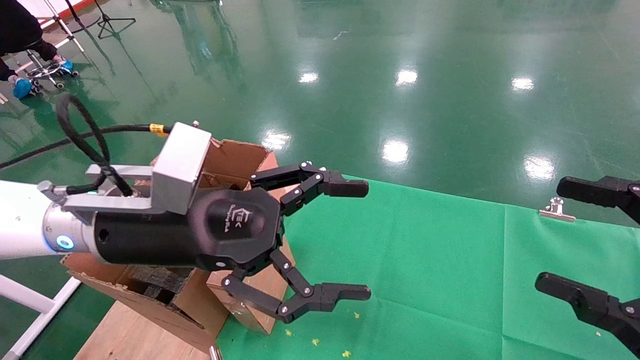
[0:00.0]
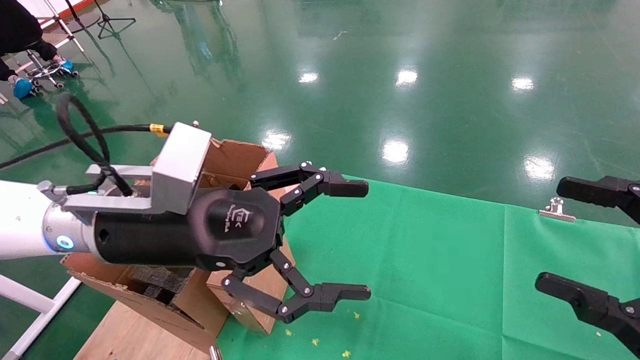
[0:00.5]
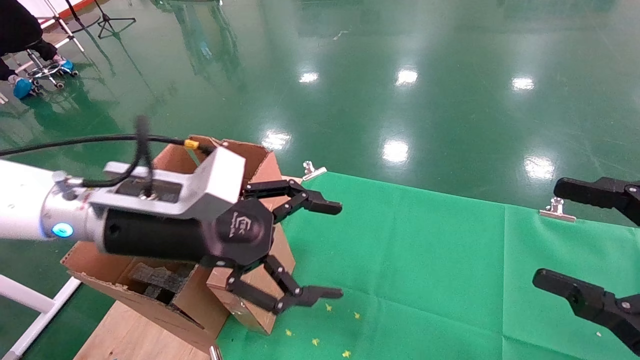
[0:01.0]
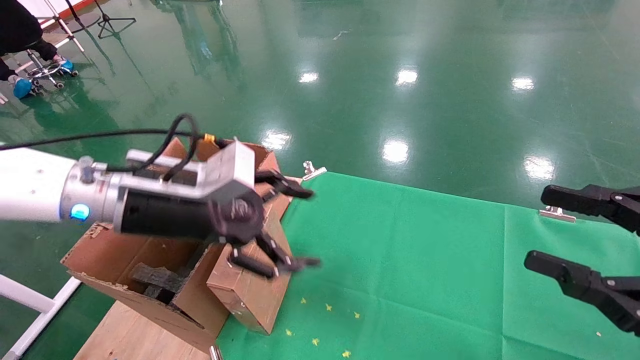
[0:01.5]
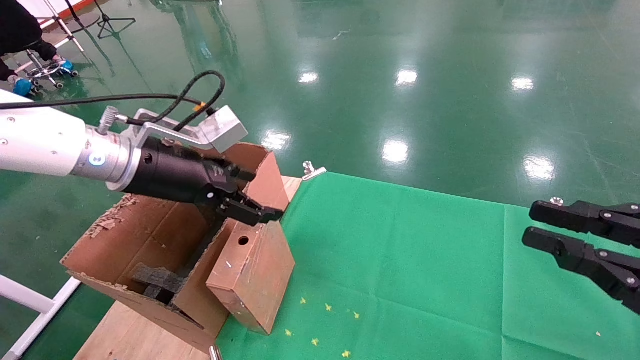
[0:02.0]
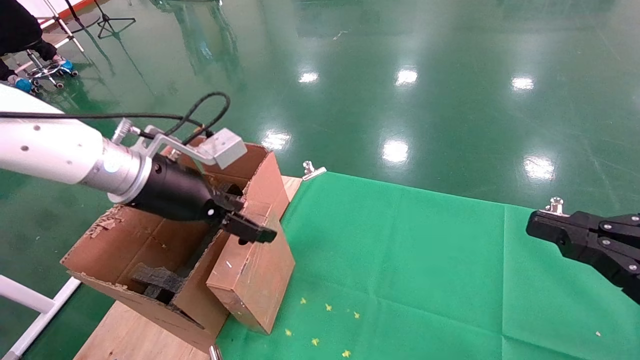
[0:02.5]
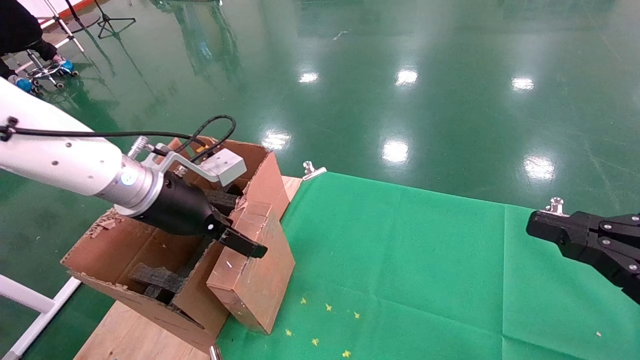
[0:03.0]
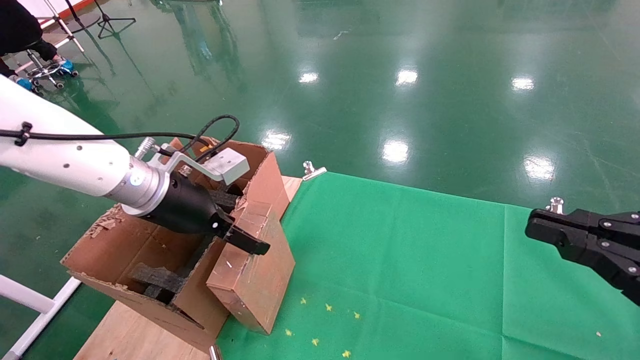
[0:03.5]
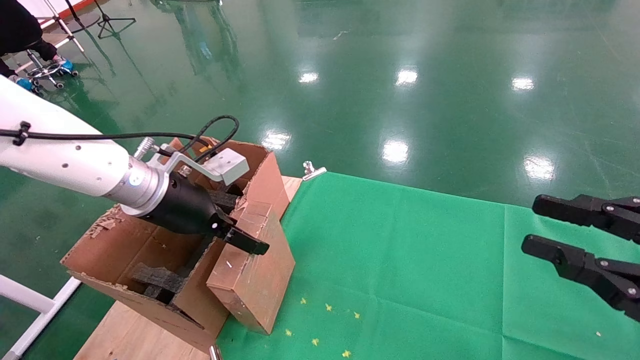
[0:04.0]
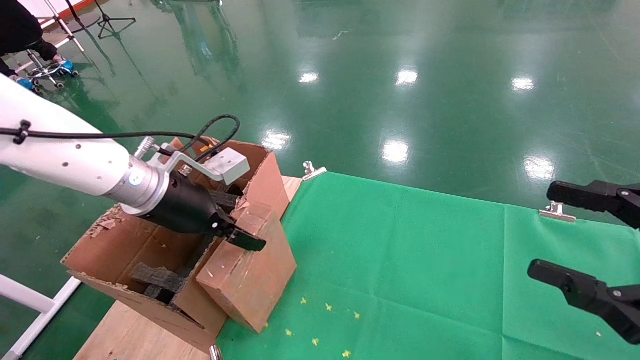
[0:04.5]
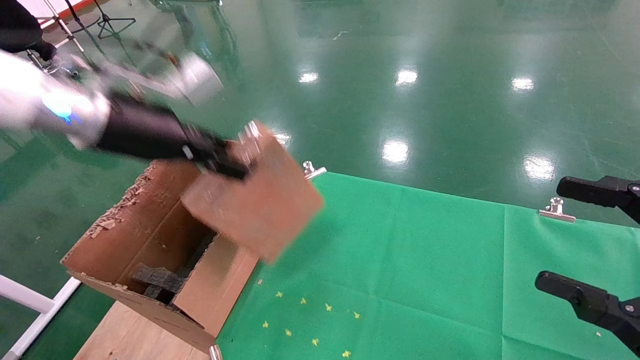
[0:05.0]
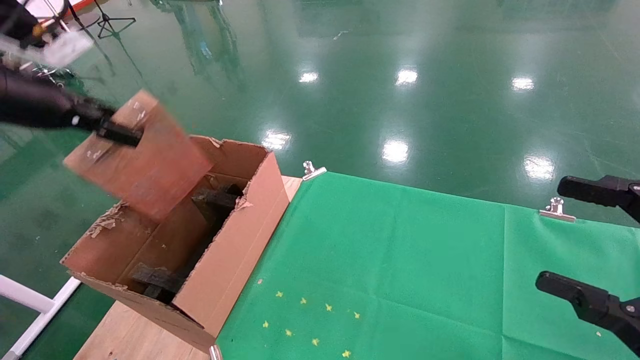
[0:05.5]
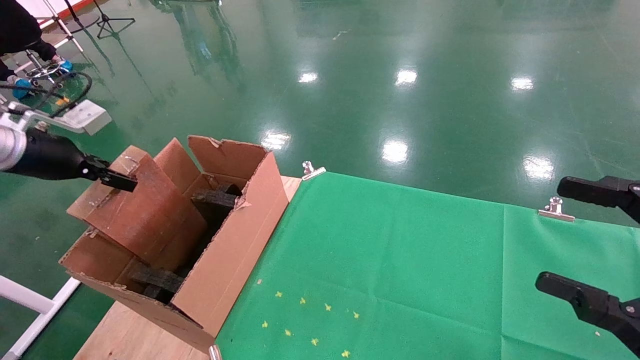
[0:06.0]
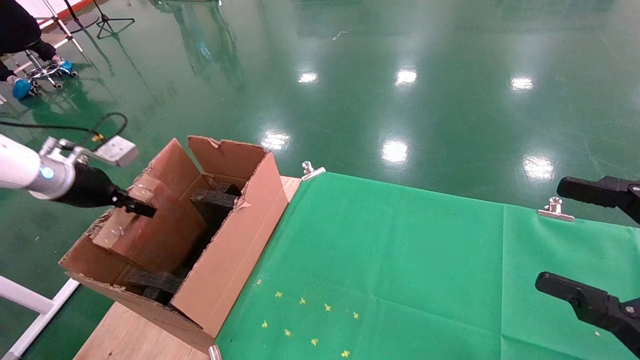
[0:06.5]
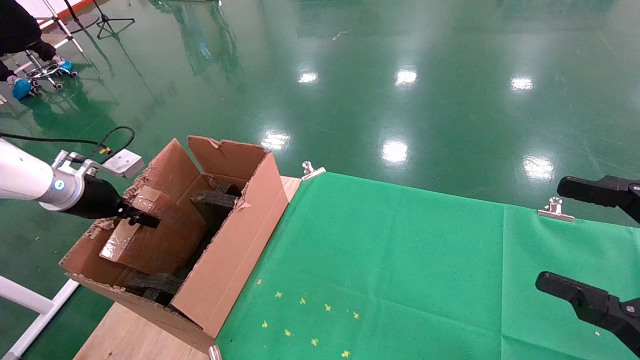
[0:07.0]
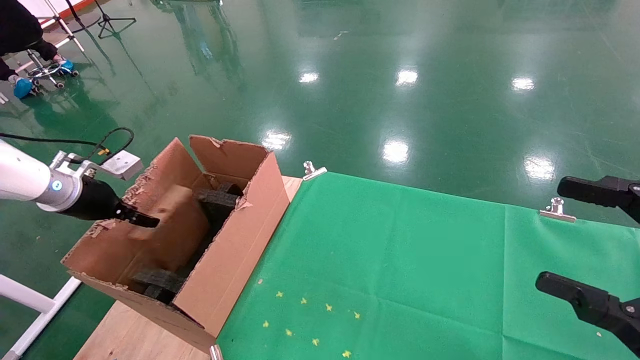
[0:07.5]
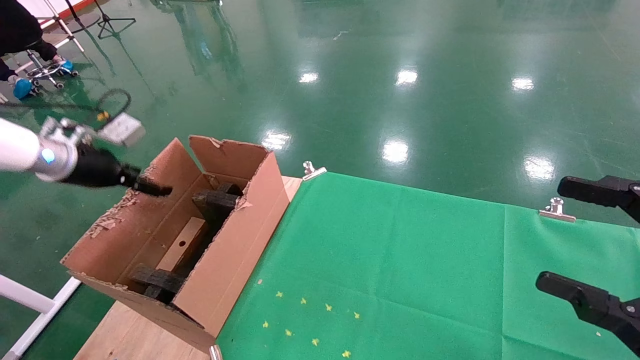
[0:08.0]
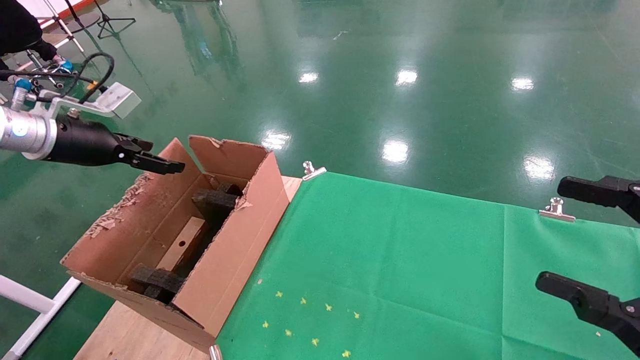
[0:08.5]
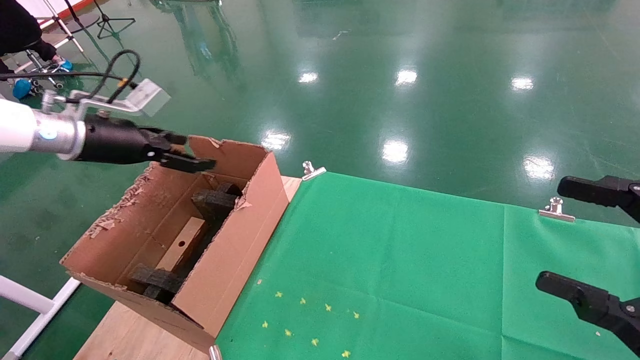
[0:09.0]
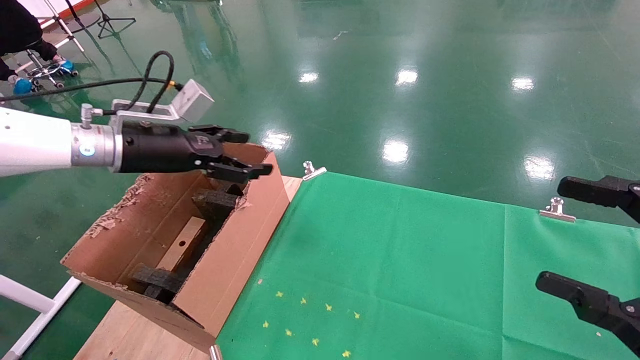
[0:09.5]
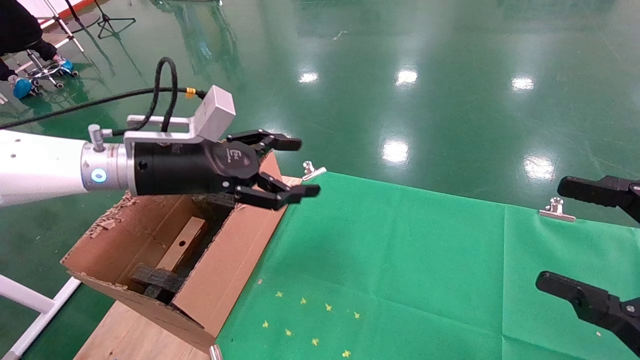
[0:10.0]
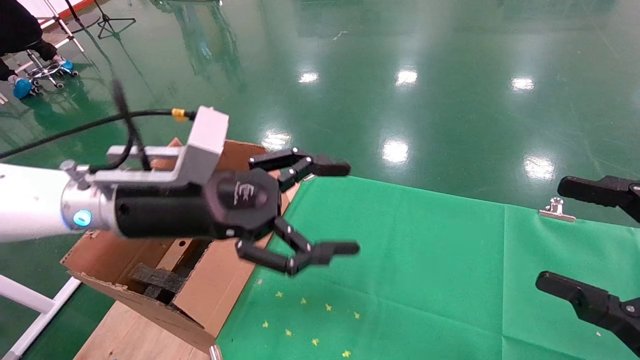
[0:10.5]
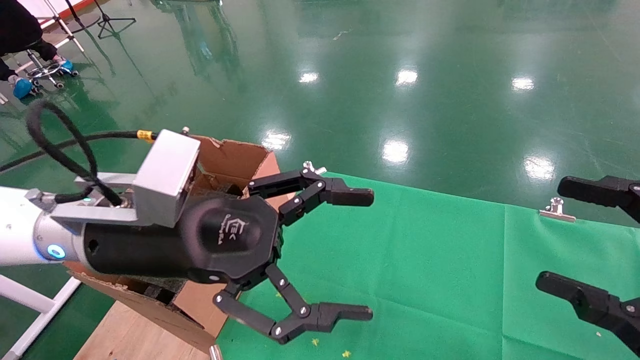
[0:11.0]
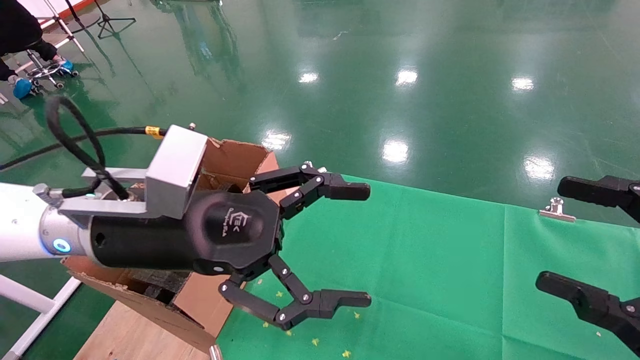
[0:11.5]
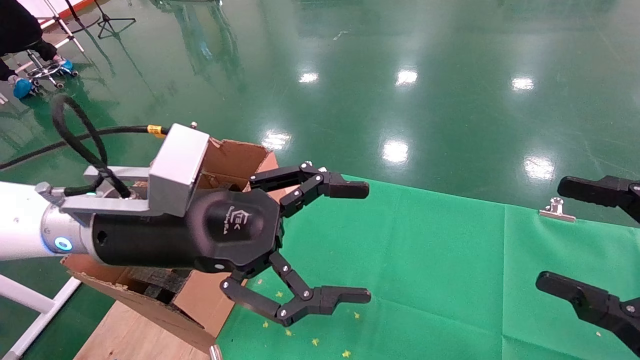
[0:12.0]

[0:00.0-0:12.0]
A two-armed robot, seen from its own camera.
Task of the whole recording: using a robotic arm to pick up a cardboard box and palace it the carton.
Step, 0:01.5 to 0:04.5: Pick up the mouse and the power cord paper box.
Step, 0:05.0 to 0:07.5: Place the mouse and the power cord paper box into the container.
0:00.0 to 0:02.0: The left gripper is displaced forward and to the left by approximately 10 cm, while the right gripper closes up.
0:04.0 to 0:06.0: The left gripper shifts approximately 25 cm to the left, and closes its fingers, while the right gripper opens.
0:06.0 to 0:08.0: The left gripper opens its fingers.
0:08.0 to 0:10.0: The left gripper is displaced to the right by approximately 20 cm.
0:10.0 to 0:12.0: The left gripper travels backward and to the right by about 10 cm.

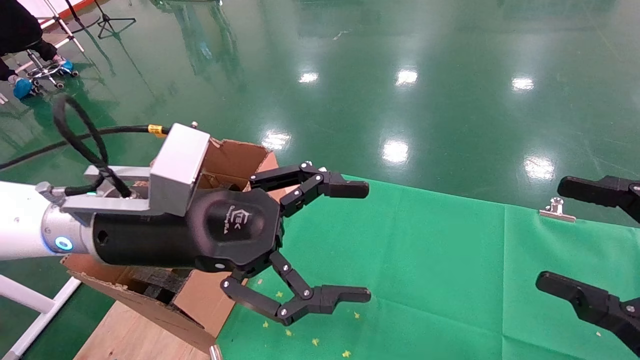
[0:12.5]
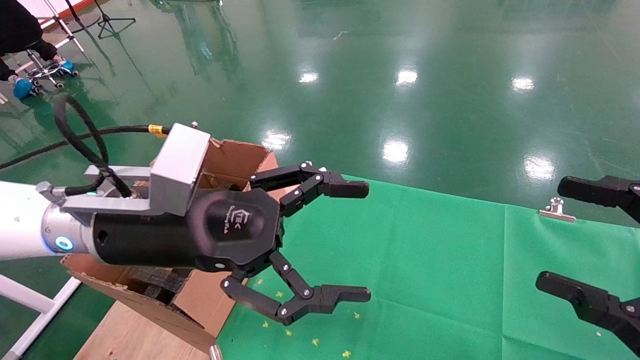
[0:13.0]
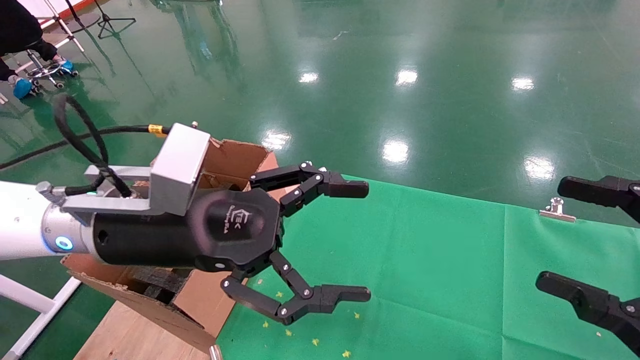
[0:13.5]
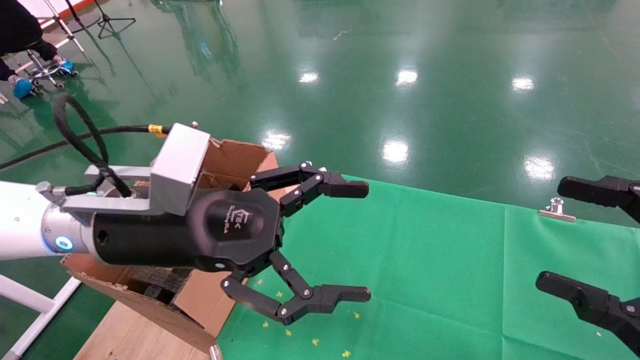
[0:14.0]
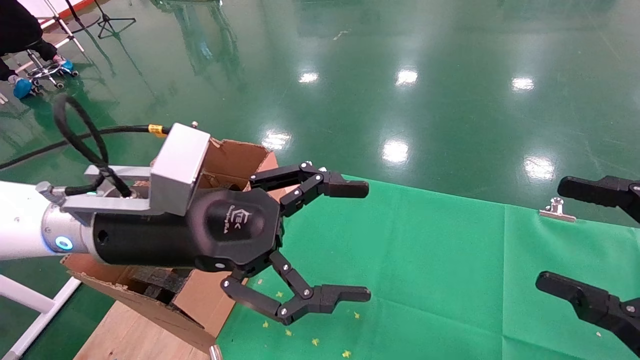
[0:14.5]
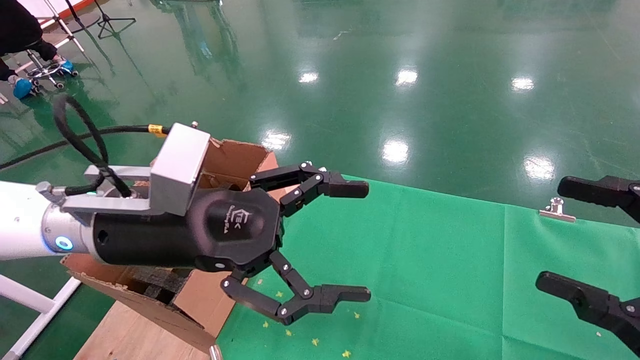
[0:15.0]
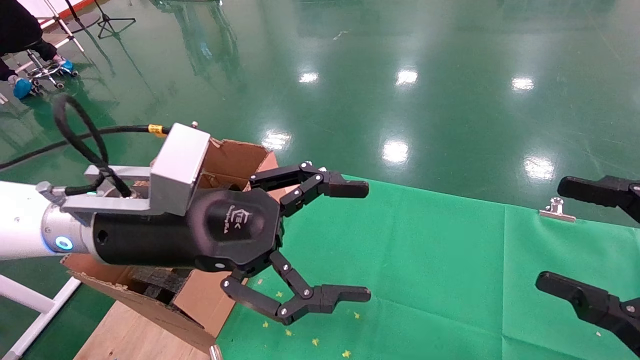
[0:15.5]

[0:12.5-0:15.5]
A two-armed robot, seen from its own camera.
Task of the whole recording: using a robotic arm to pick up a cardboard box and palace it the carton.
0:12.5 to 0:15.5: The two grippers keep their place.

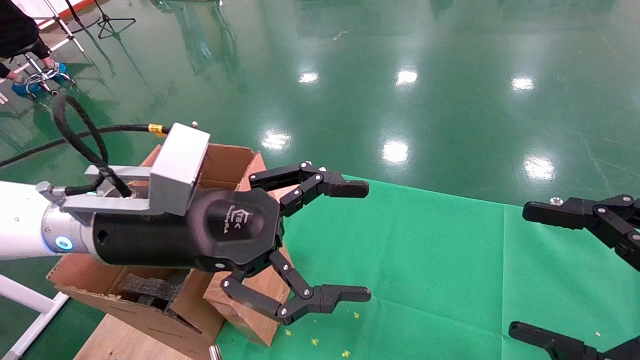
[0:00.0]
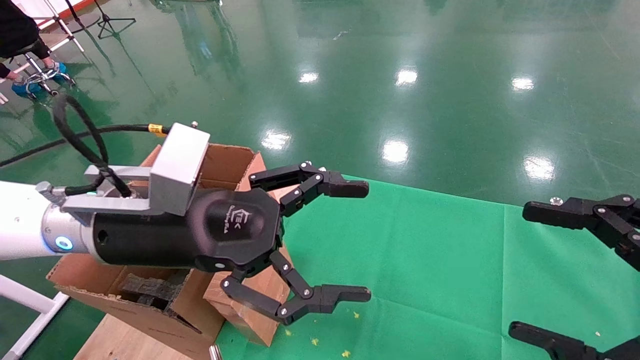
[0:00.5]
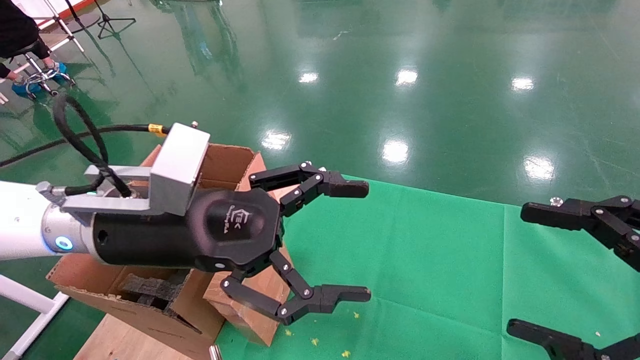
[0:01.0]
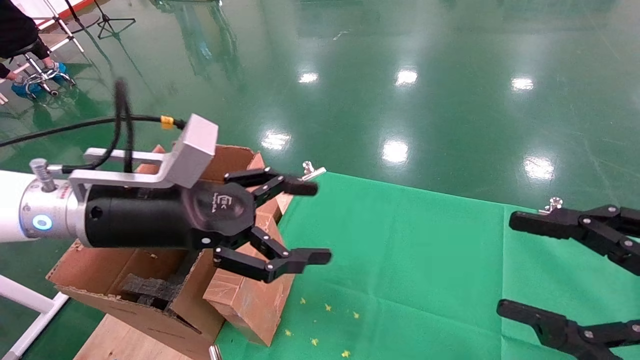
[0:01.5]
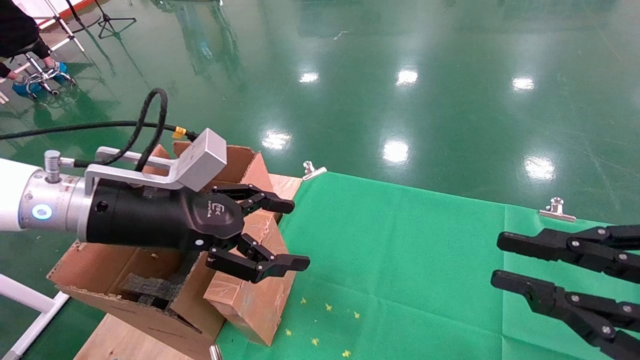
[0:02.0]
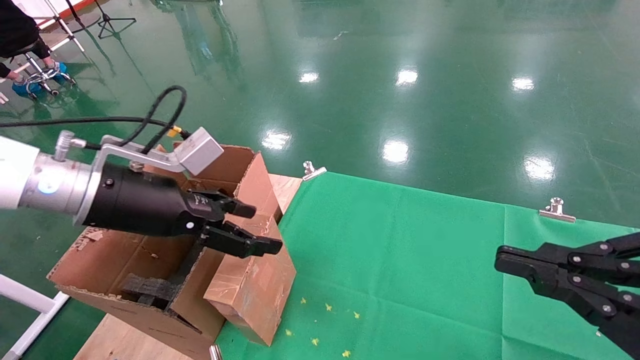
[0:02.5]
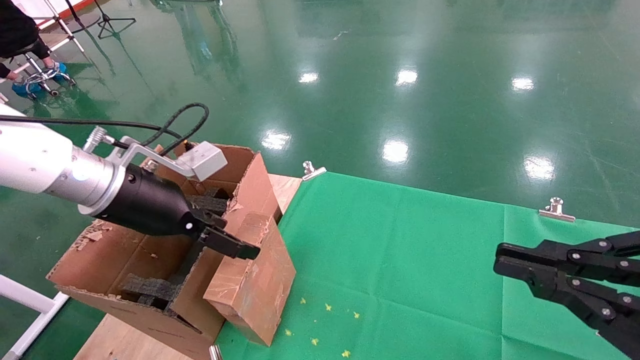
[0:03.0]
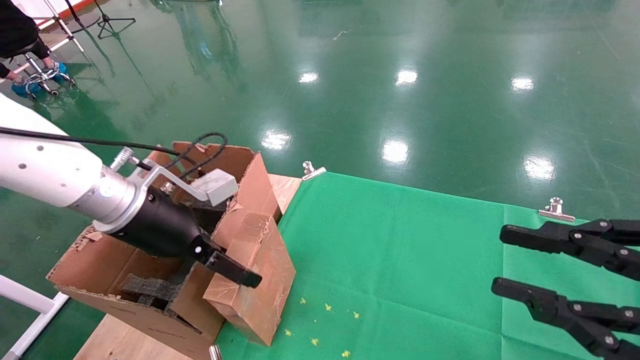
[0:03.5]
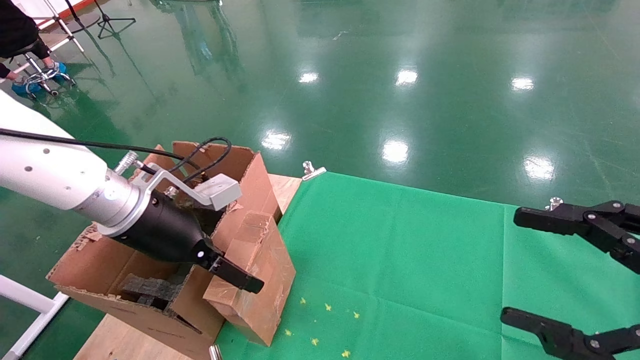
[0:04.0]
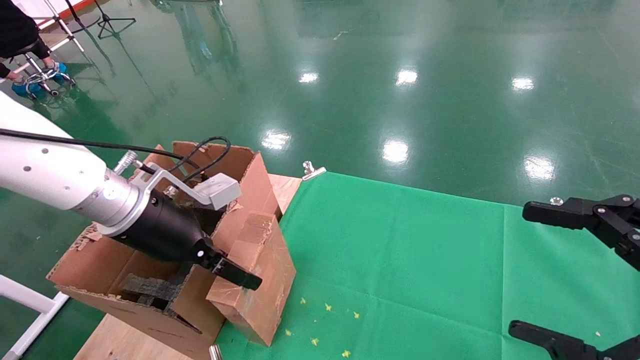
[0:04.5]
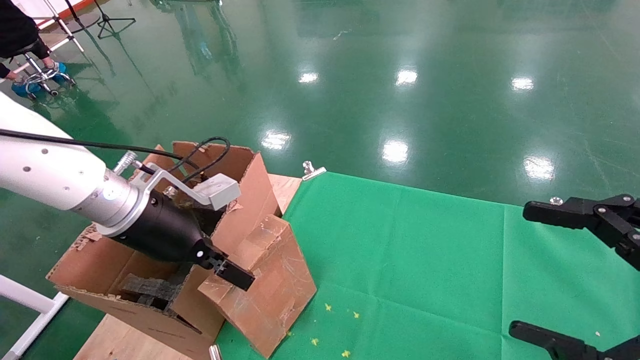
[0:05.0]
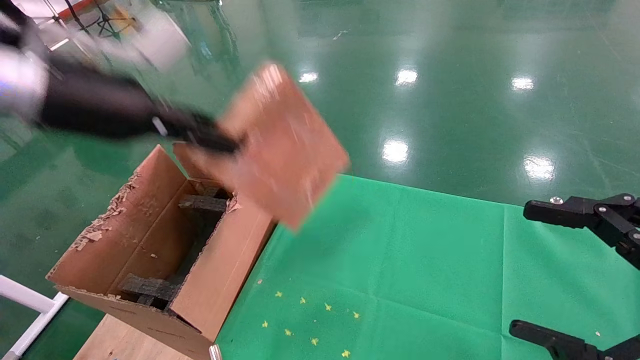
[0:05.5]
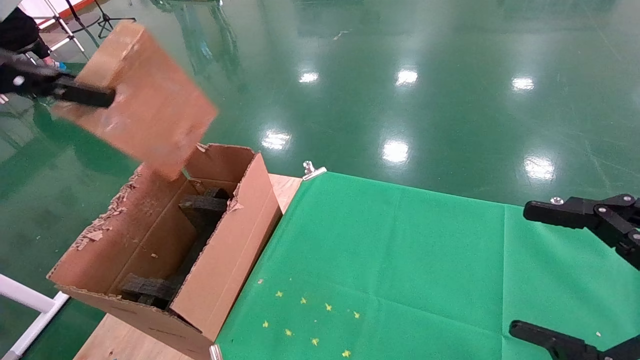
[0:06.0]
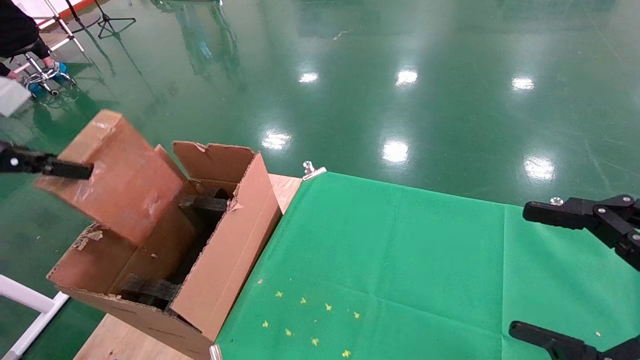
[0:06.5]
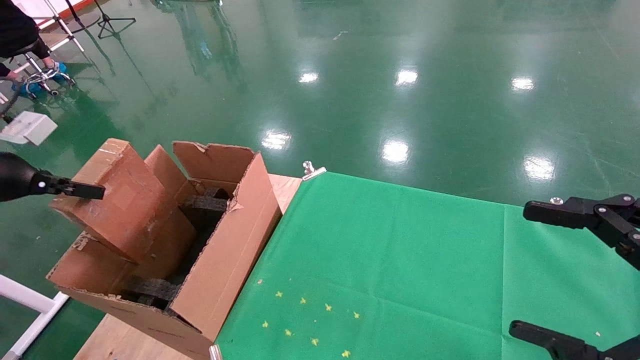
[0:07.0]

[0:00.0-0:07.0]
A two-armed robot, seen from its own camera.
Task of the whole recording: using a robotic arm to pick up a cardboard box and palace it the carton.
Step, 0:01.5 to 0:04.5: Pick up the mouse and the power cord paper box.
0:00.0 to 0:02.0: The left gripper travels to the left by approximately 5 cm, while the right gripper closes up.
0:03.5 to 0:05.0: The left gripper closes its fingers; the right gripper opens.
0:05.0 to 0:07.0: The left gripper goes some 25 cm to the left.
